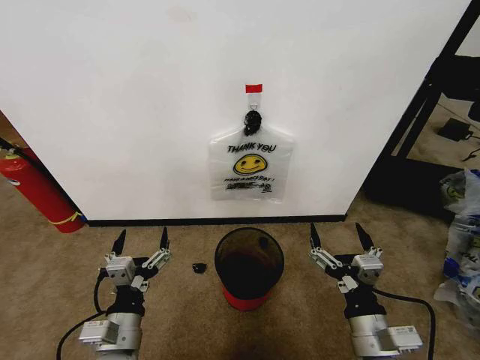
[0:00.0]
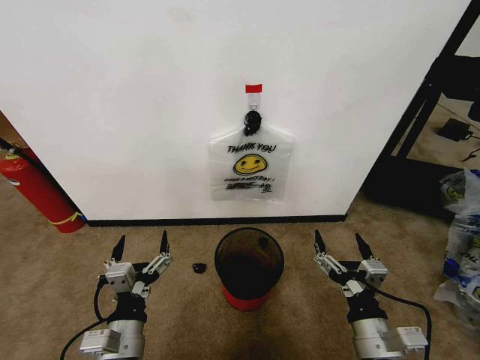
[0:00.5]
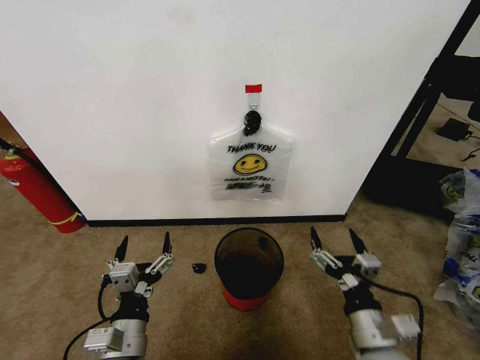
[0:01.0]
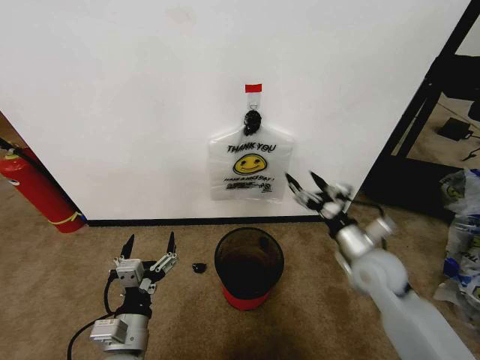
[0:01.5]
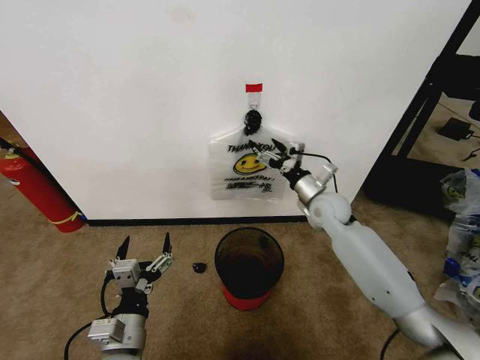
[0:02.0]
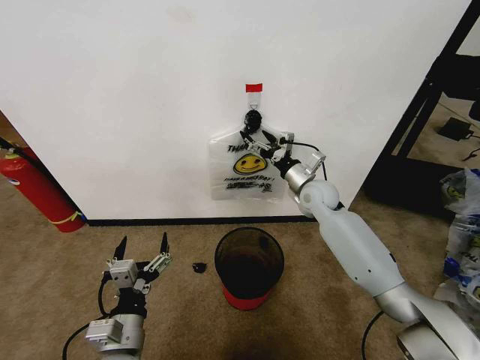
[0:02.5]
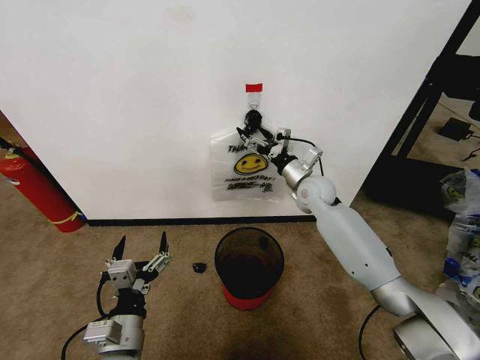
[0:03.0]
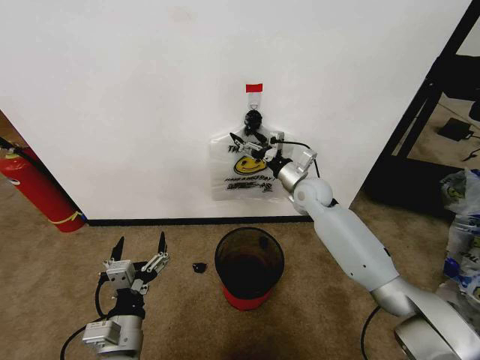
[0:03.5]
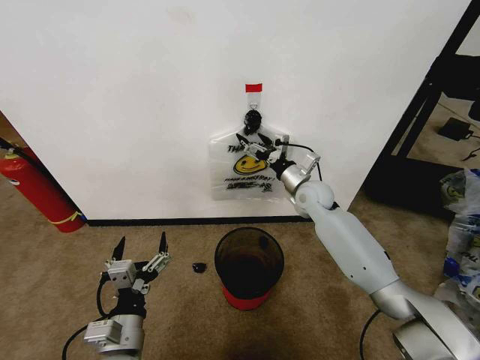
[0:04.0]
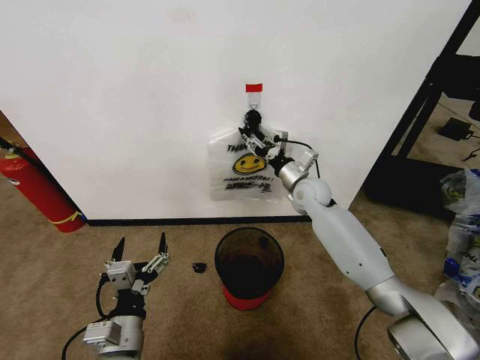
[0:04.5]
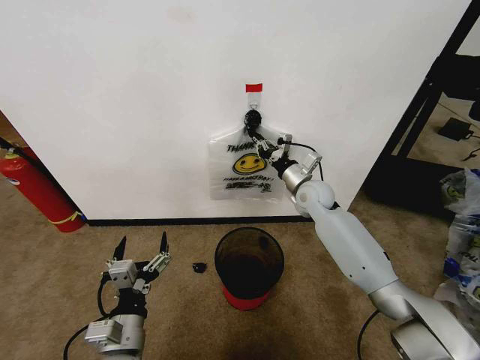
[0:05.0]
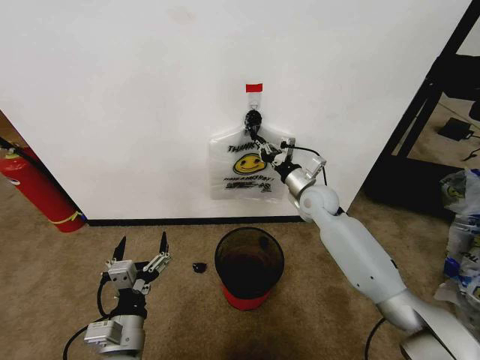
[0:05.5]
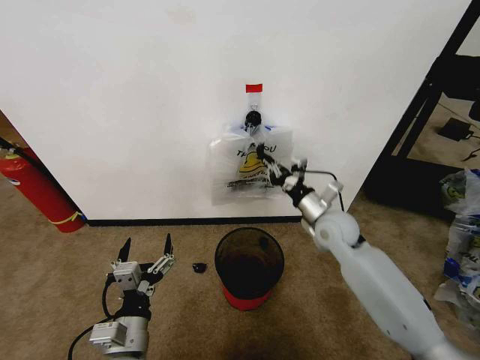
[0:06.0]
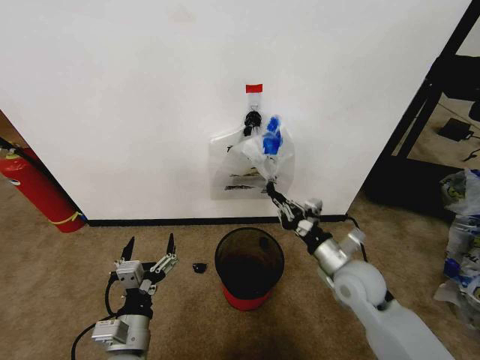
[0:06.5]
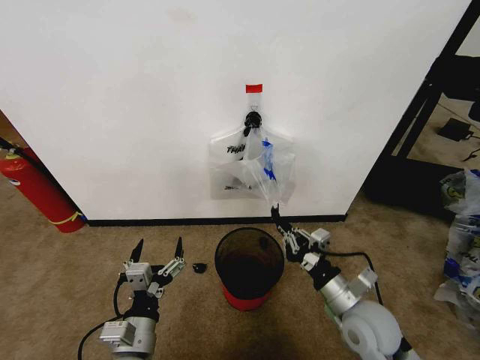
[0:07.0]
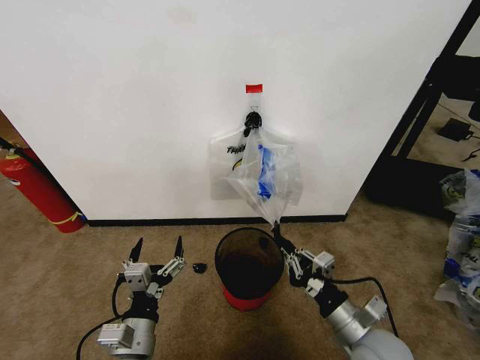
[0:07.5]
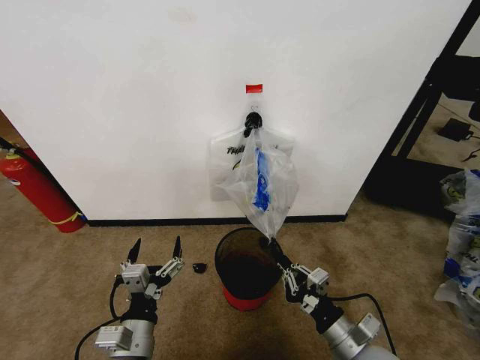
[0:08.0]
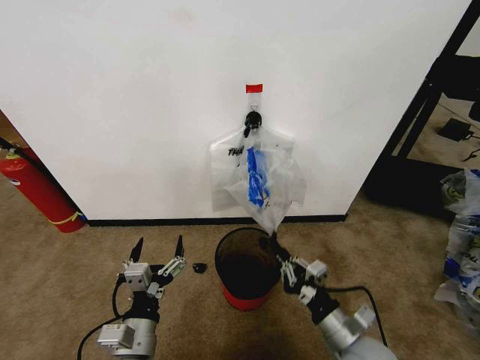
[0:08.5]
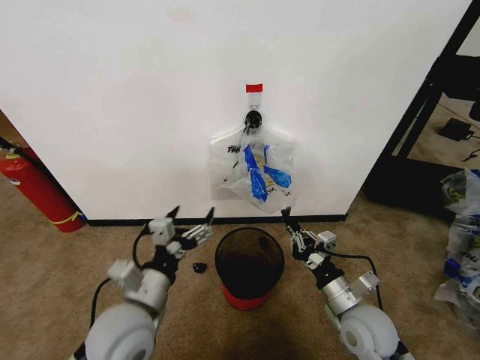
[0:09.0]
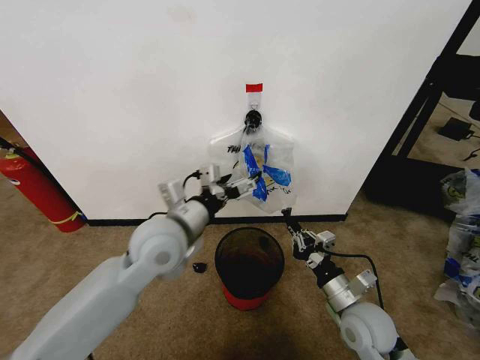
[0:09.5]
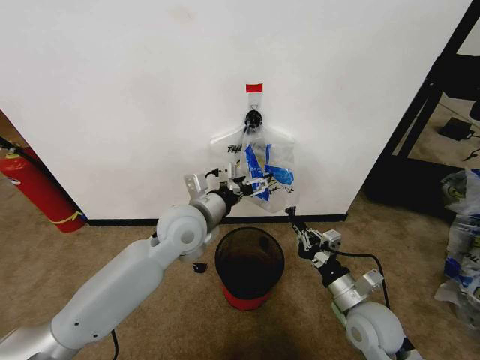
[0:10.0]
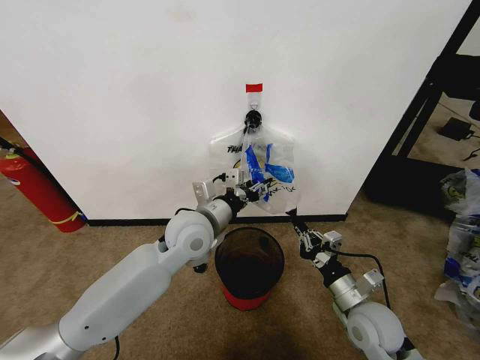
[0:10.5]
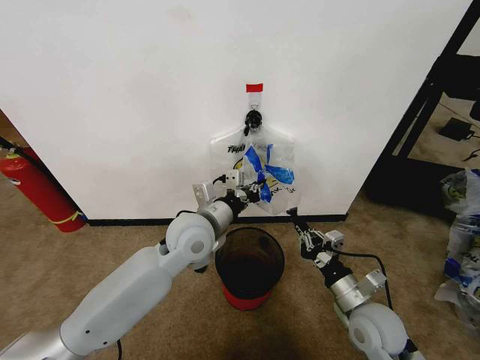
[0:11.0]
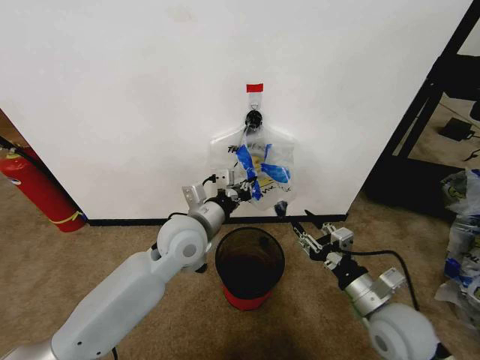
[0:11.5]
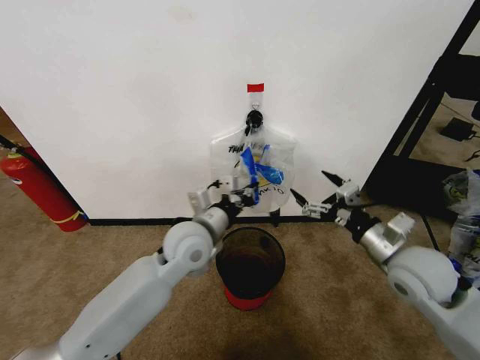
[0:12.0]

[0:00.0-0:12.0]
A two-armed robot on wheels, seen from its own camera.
Task of the whole recording: Pick up the garbage bag from the wall and place it over the trash bin.
0:02.0 to 0:04.0: The right gripper changes place by approximately 5 cm.
0:04.0 to 0:06.0: The right gripper goes some 10 cm backward, and closes up.
0:06.0 to 0:08.0: The right gripper shifts roughly 25 cm backward.
0:08.0 to 0:10.0: The right gripper heads forward, covering about 10 cm. Meanwhile the left gripper heads forward and upward, covering some 25 cm.
0:10.0 to 0:12.0: The right gripper is displaced upward, forward and to the right by approximately 15 cm, and opens up; the left gripper closes up.

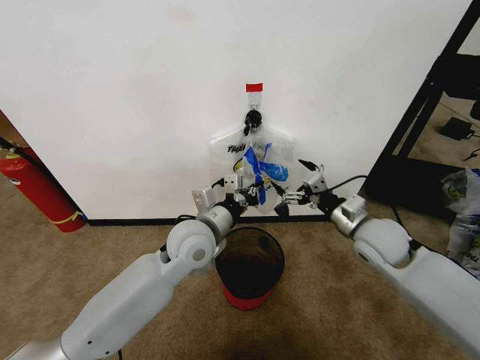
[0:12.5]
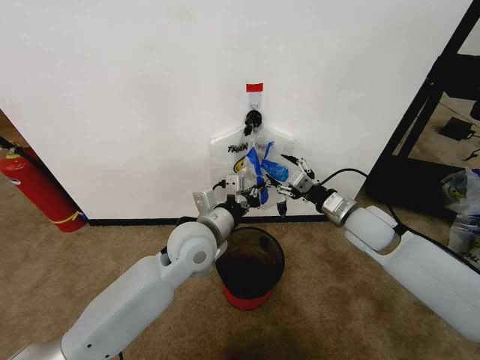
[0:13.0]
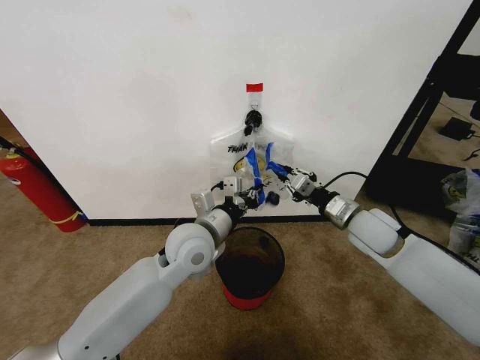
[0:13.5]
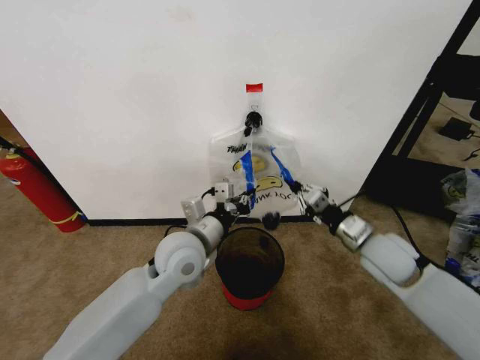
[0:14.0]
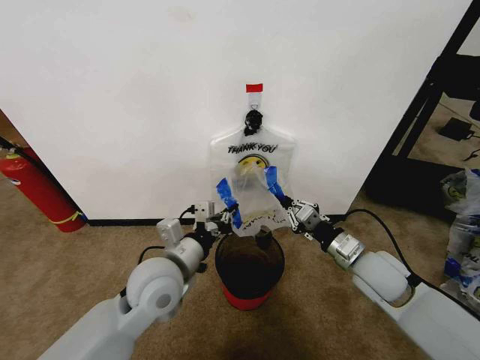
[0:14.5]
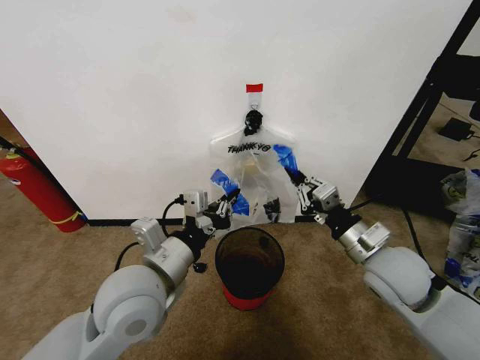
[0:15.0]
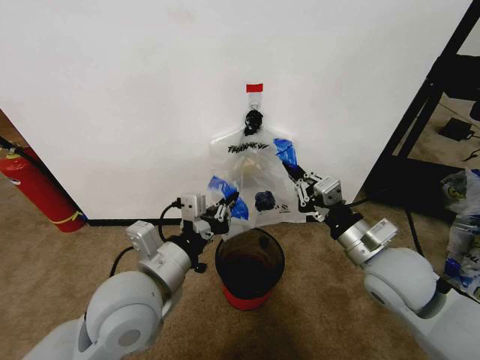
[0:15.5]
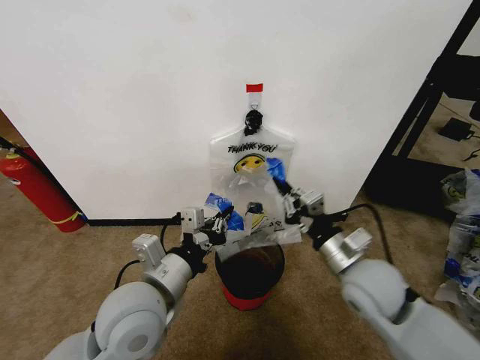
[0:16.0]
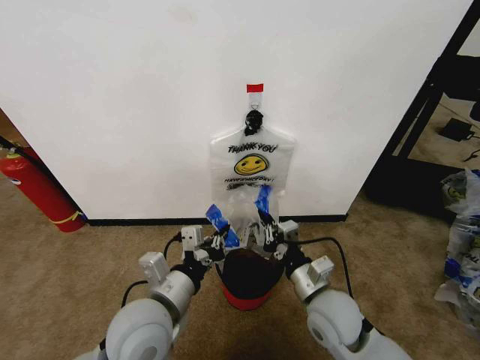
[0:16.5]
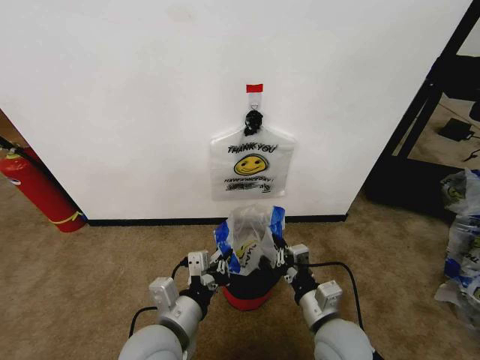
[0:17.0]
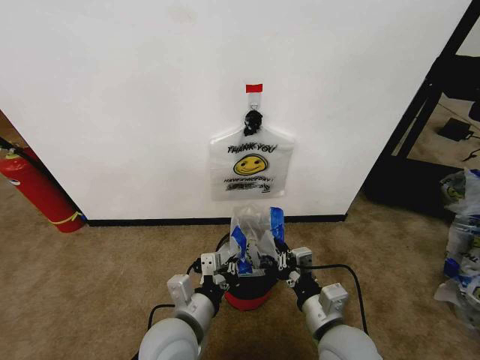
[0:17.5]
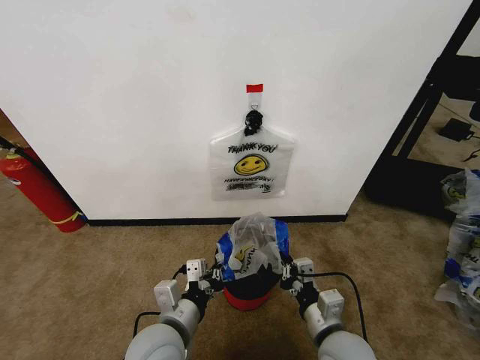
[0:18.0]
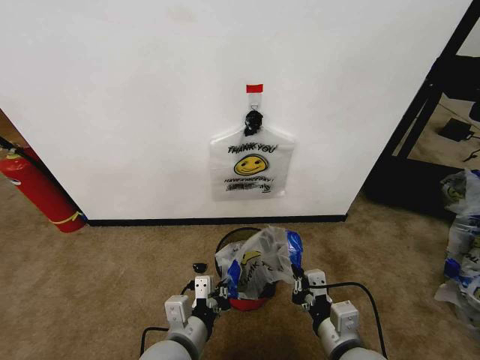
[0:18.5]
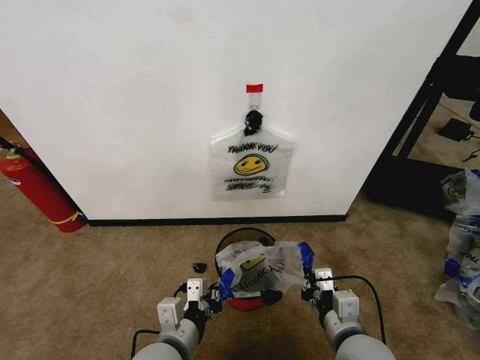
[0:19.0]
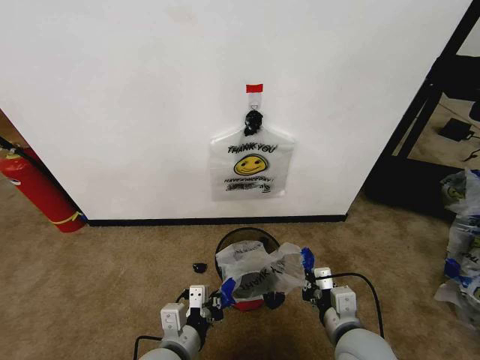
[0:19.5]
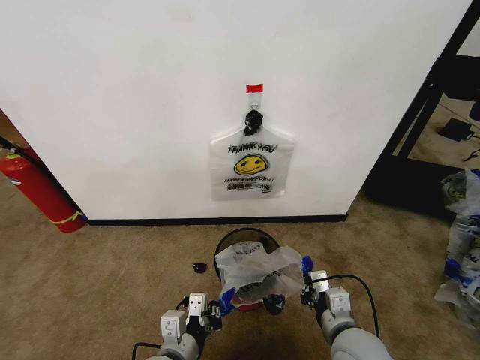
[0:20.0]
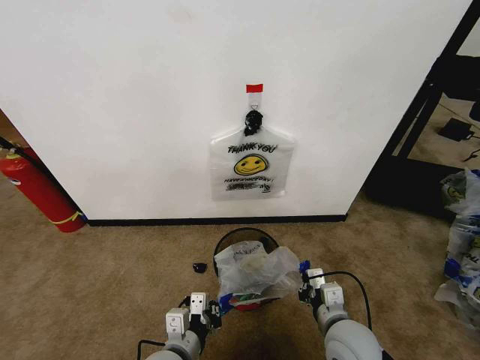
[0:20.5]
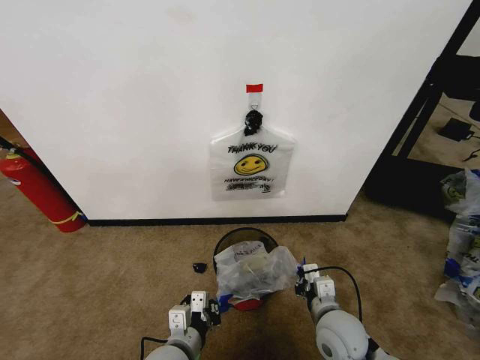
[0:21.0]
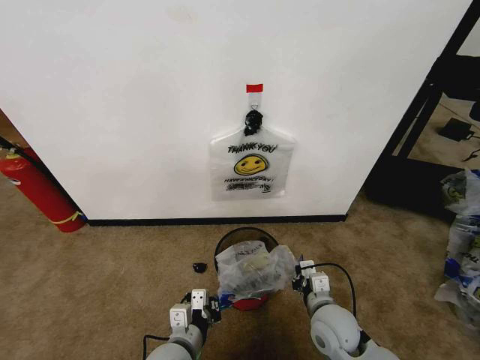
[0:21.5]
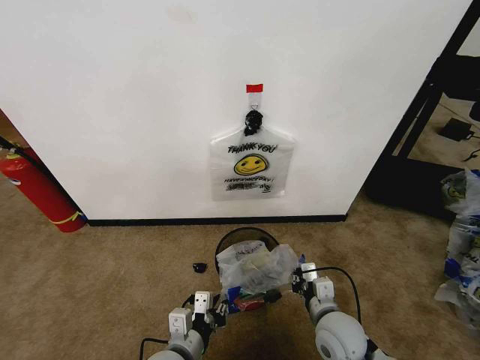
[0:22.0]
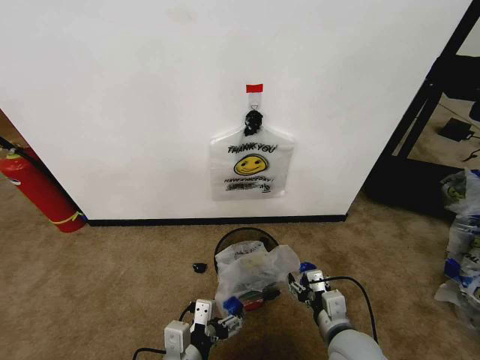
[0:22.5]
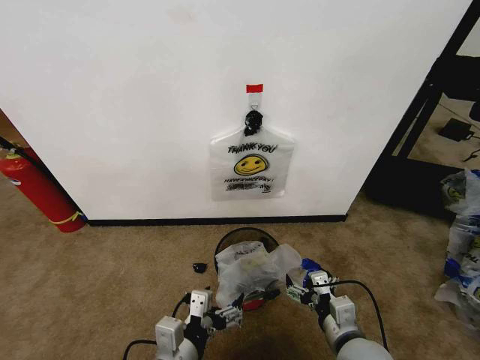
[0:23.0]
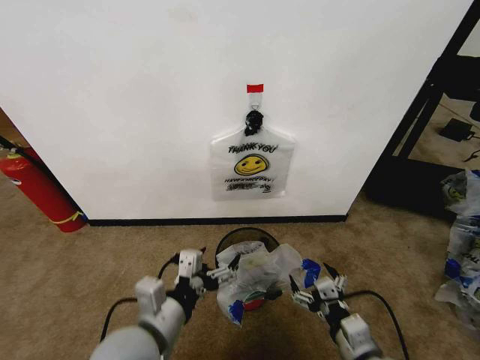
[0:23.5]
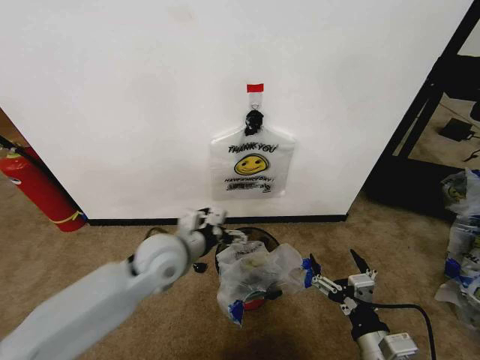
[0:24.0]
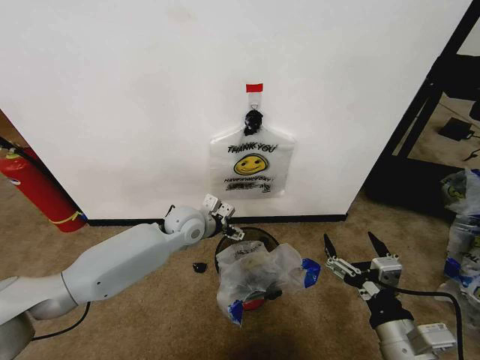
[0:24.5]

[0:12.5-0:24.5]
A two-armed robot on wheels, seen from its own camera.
Task of the whole recording: Pick up the garbage bag from the wall and place it over the trash bin.
0:12.5 to 0:14.5: The left gripper heads backward and to the left, covering some 10 cm. The right gripper heads backward, covering about 5 cm, and closes its fingers.
0:14.5 to 0:16.5: The left gripper travels backward by roughly 5 cm. The right gripper moves to the left and backward, some 10 cm, and travels upward and back again, roughly 10 cm each way.
0:16.5 to 0:18.5: The left gripper travels downward by approximately 10 cm, while the right gripper heads backward, covering roughly 10 cm.
0:18.5 to 0:20.5: The right gripper goes about 5 cm forward.
0:20.5 to 0:22.5: The left gripper opens. The right gripper opens its fingers.
0:22.5 to 0:24.5: The left gripper heads forward, covering about 30 cm. Meanwhile the right gripper travels upward, backward and to the right by about 15 cm.

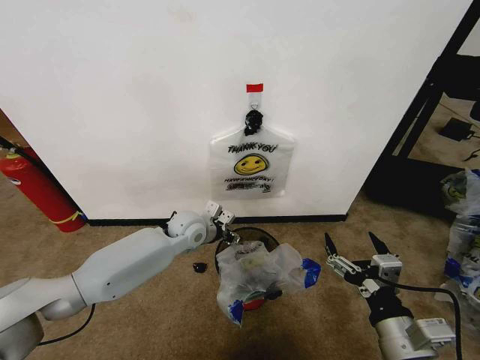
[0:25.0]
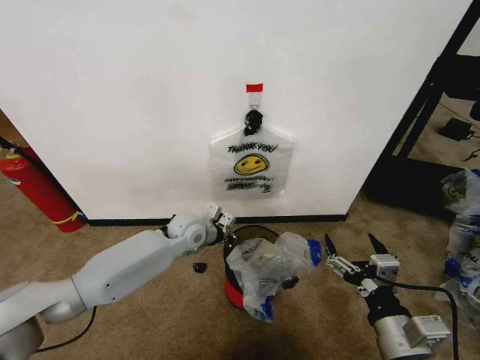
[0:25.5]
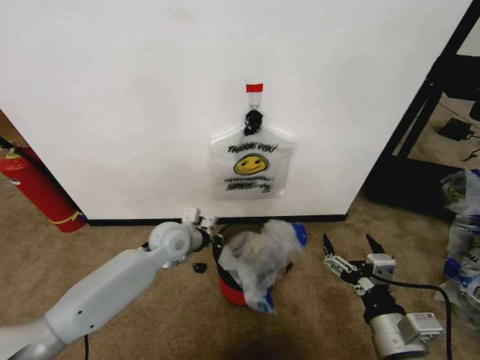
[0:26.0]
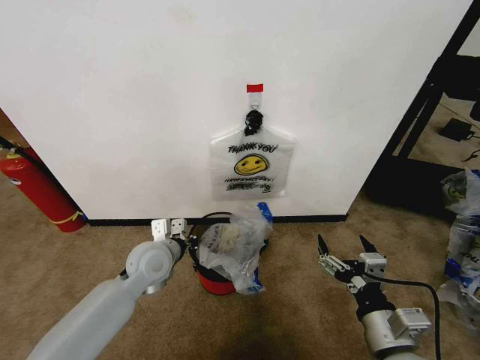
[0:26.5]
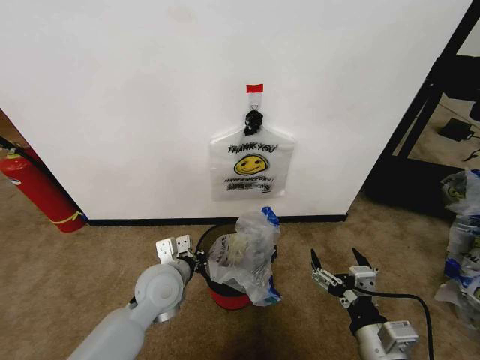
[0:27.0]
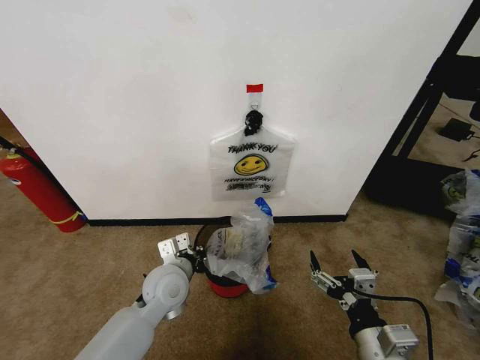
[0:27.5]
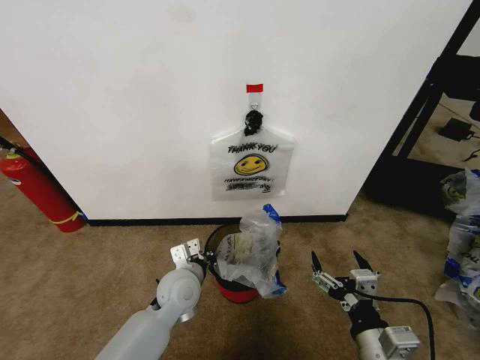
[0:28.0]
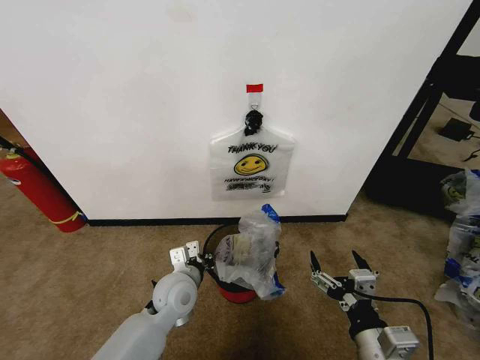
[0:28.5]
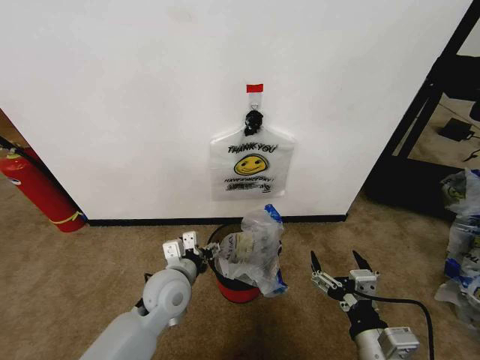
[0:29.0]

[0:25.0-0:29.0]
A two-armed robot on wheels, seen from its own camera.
Task of the whole recording: Pick up the garbage bag from the wall and place it over the trash bin.
0:25.0 to 0:27.0: The left gripper moves backward, approximately 15 cm, and closes.
0:27.0 to 0:29.0: The left gripper opens its fingers.
